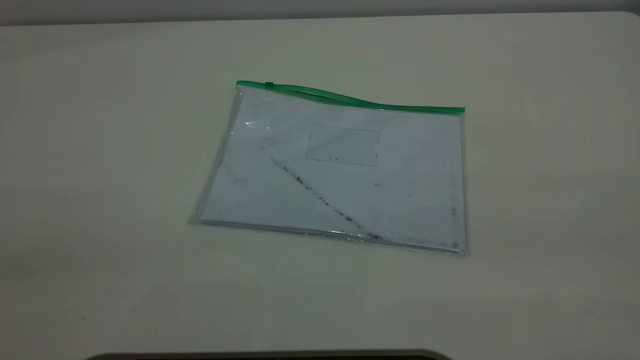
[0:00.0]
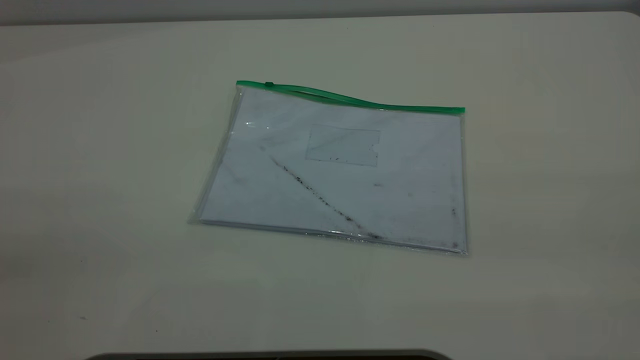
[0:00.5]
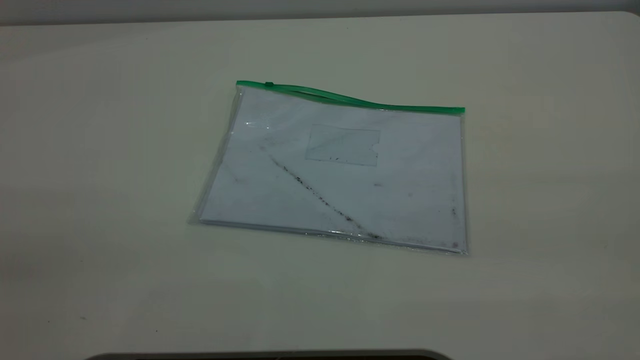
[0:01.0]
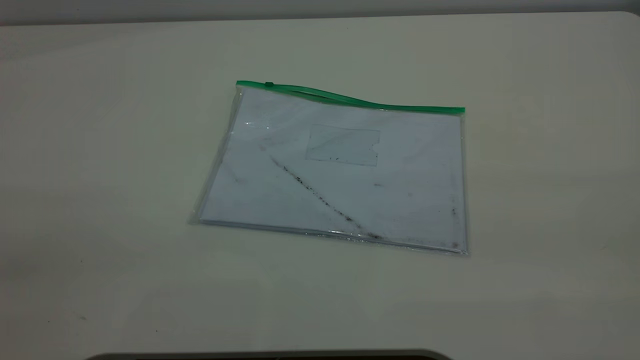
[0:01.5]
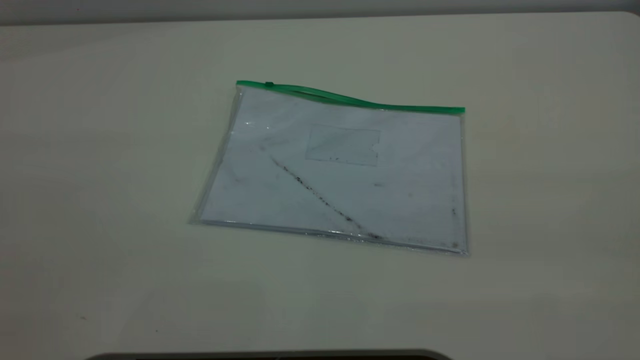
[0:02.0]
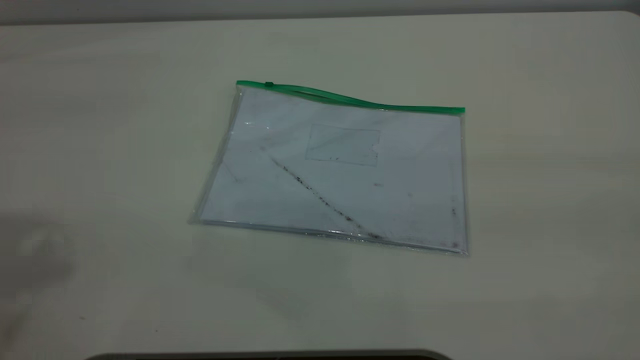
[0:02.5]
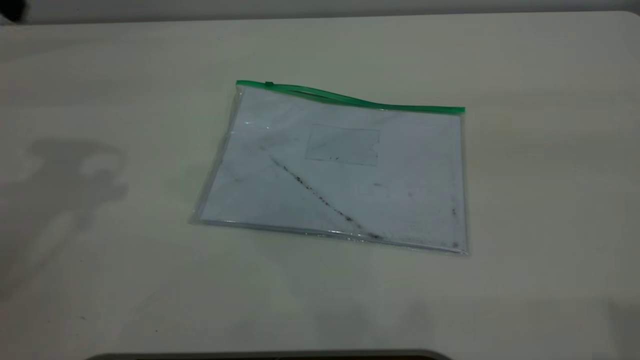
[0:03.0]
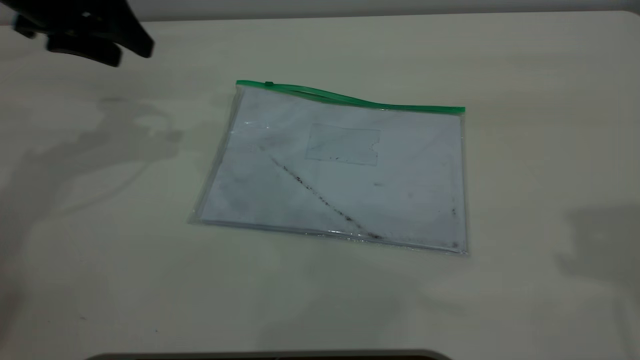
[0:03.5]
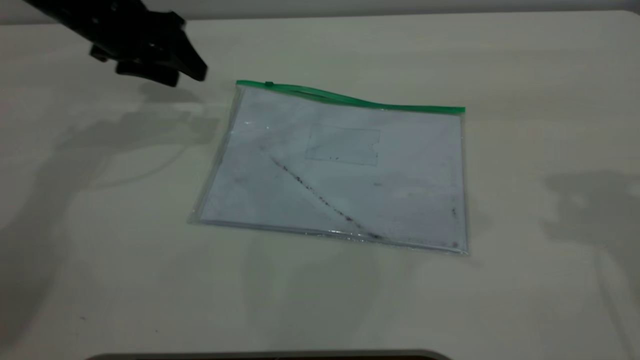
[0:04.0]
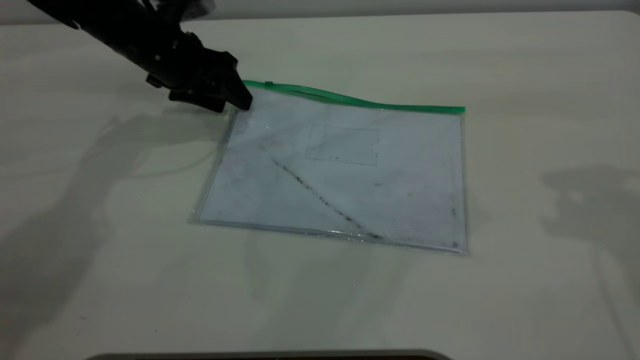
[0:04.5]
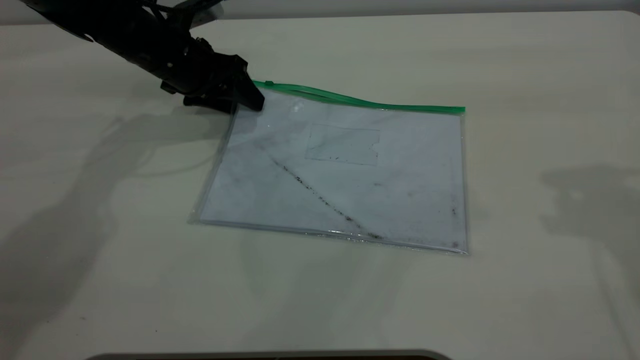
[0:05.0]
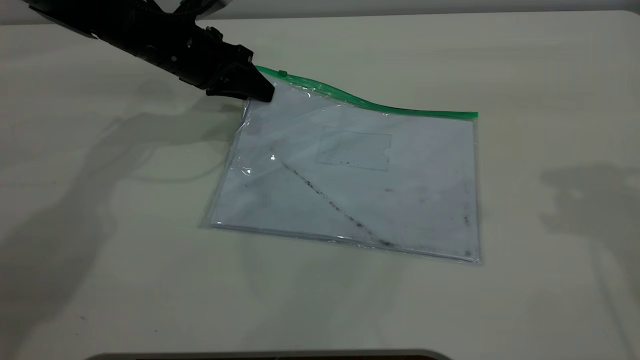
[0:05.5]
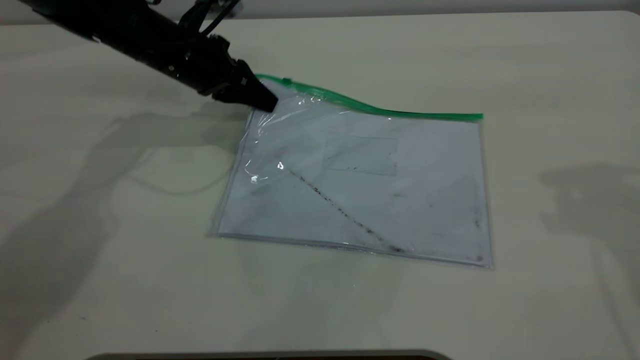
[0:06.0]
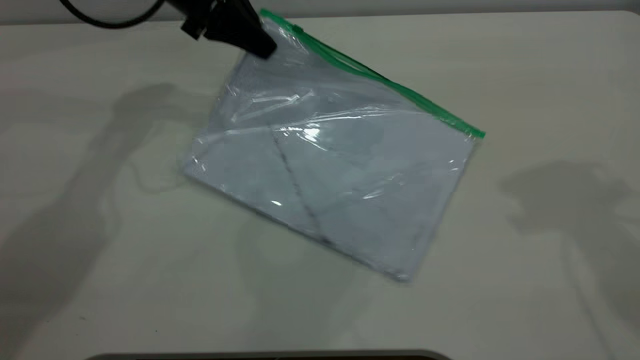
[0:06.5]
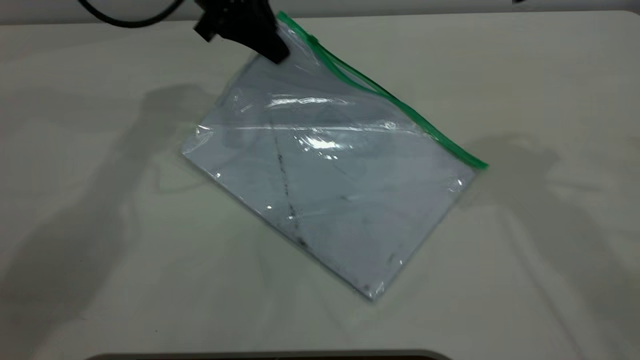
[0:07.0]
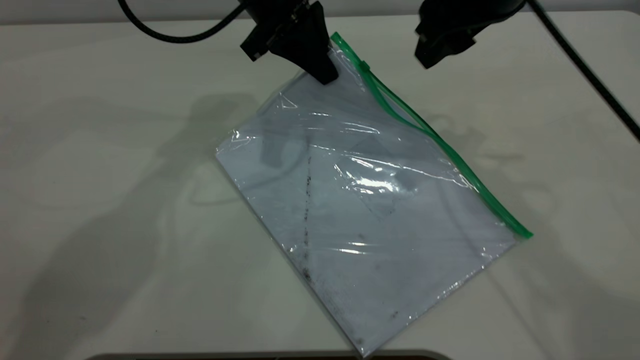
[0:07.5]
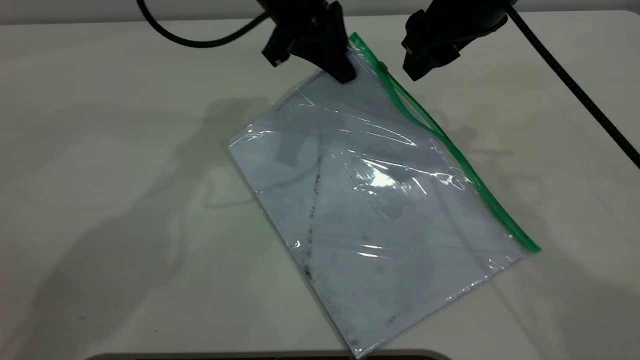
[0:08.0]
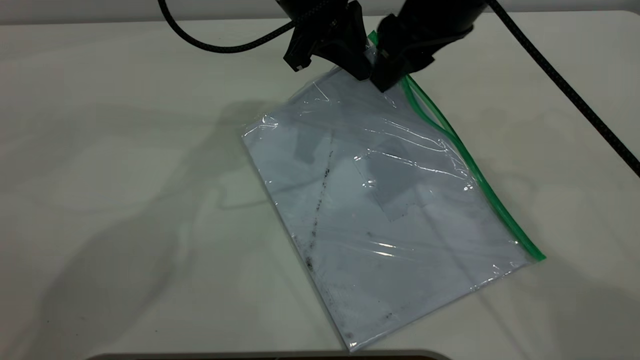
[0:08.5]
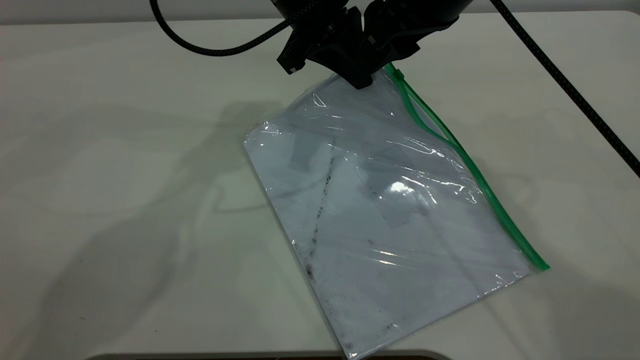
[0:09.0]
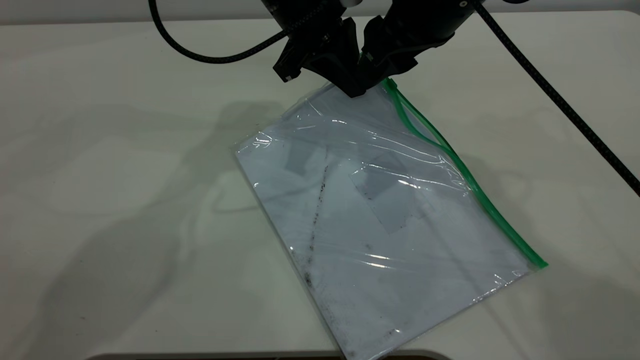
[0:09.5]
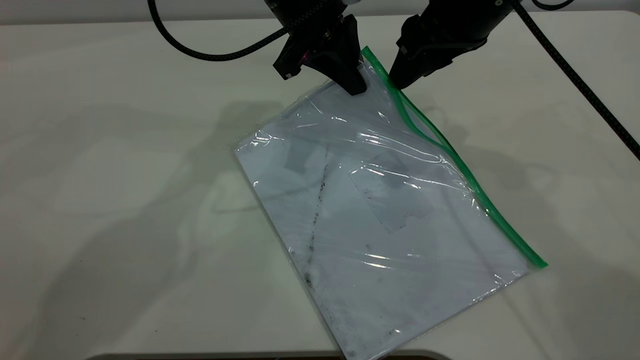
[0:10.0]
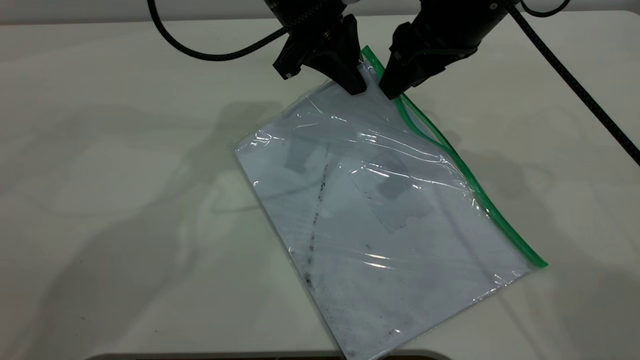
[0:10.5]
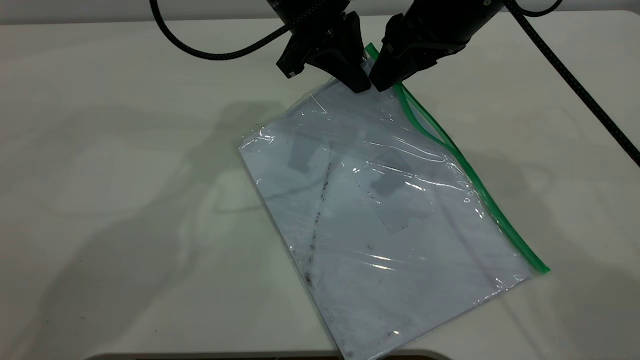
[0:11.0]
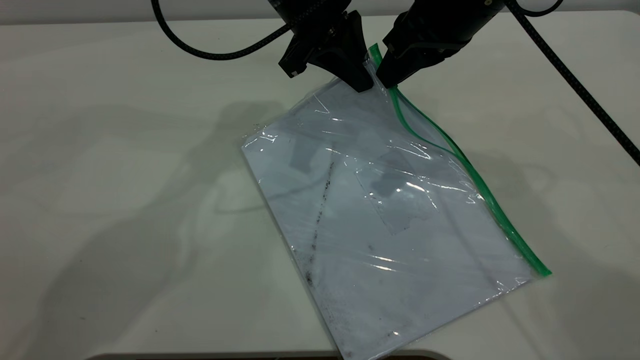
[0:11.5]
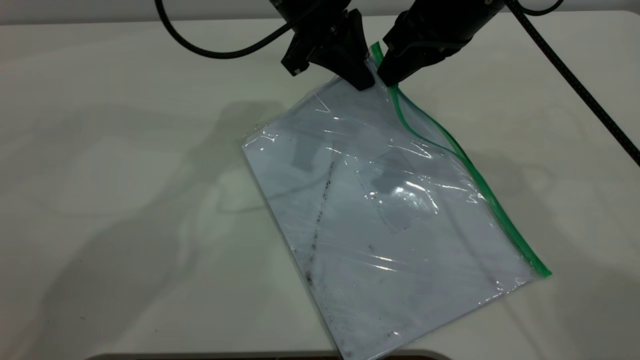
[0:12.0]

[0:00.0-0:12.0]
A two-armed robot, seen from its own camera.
Step, 0:00.0 to 0:06.0: Pick up the transparent plastic bag with the left gripper.
0:02.0 to 0:04.0: The left gripper is displaced forward and downward by some 50 cm.
0:04.0 to 0:06.0: The left gripper shifts some 10 cm to the right and downward, and closes up.
0:06.0 to 0:08.0: The left gripper travels to the right and upward by about 15 cm. Meanwhile the right gripper heads to the left, forward and downward, covering approximately 20 cm.
0:08.0 to 0:10.0: The grippers stay close to where they were, moving slightly.
0:10.0 to 0:12.0: The right gripper closes.

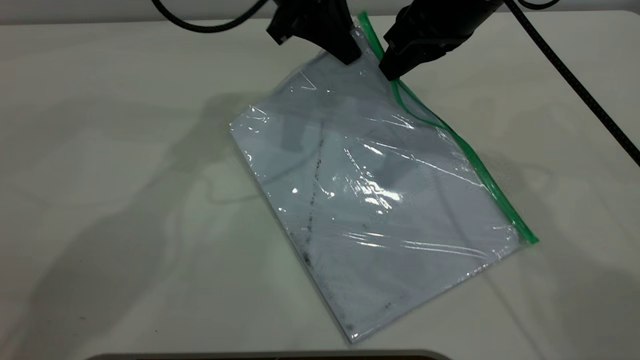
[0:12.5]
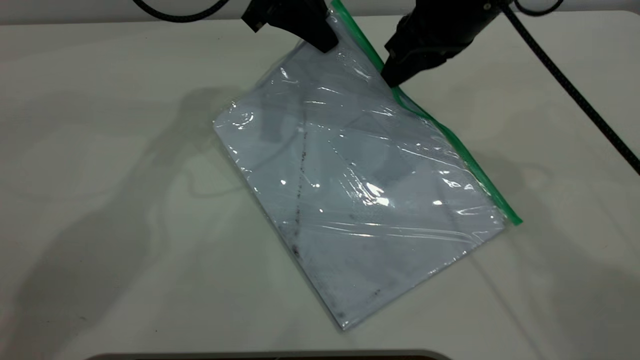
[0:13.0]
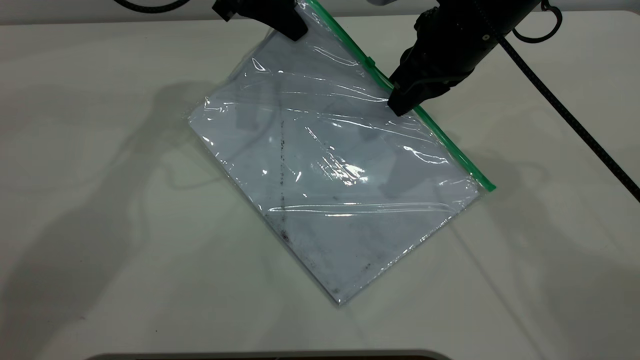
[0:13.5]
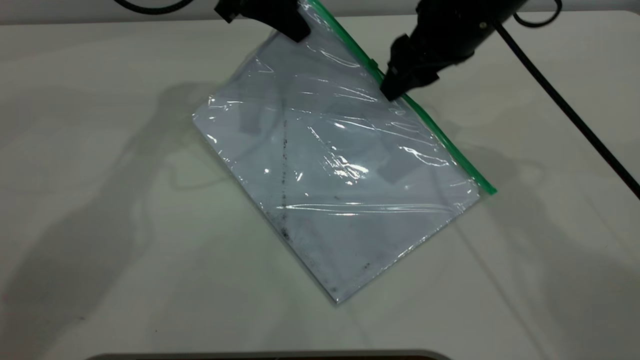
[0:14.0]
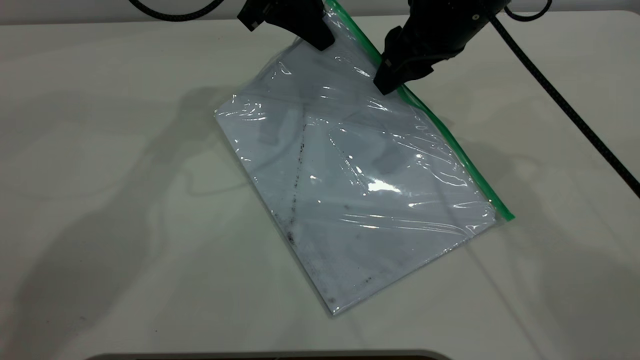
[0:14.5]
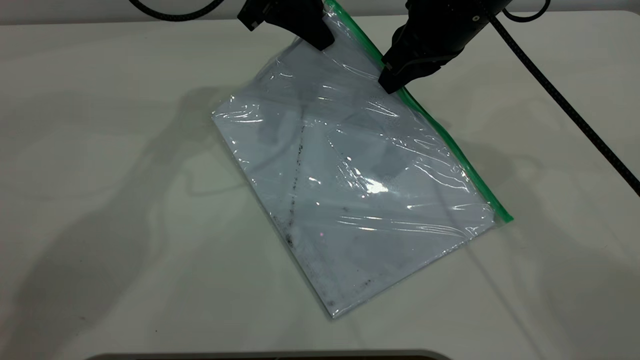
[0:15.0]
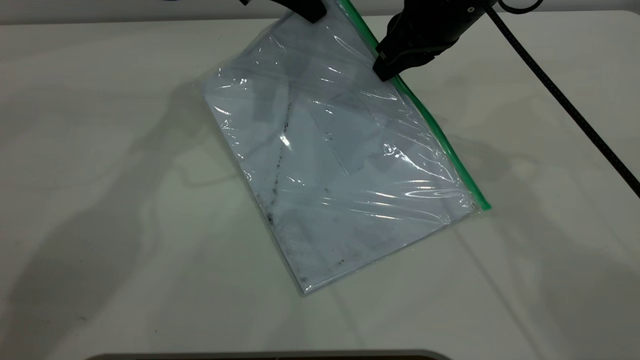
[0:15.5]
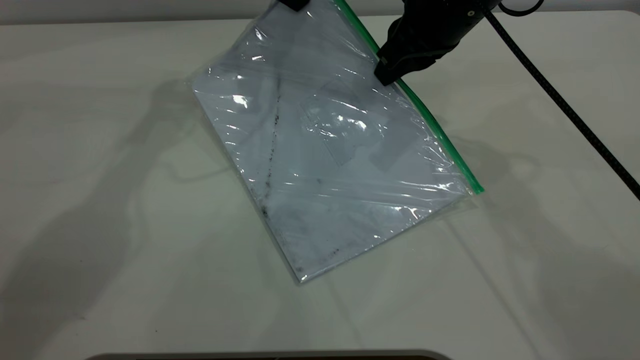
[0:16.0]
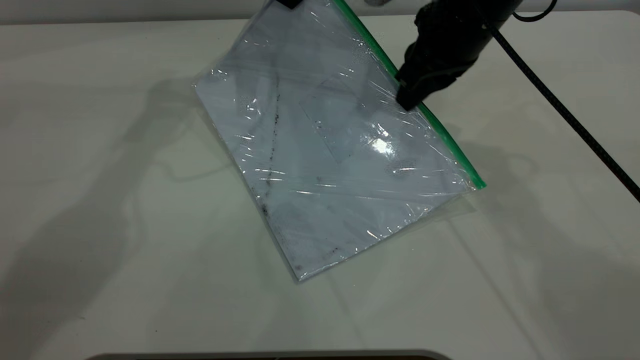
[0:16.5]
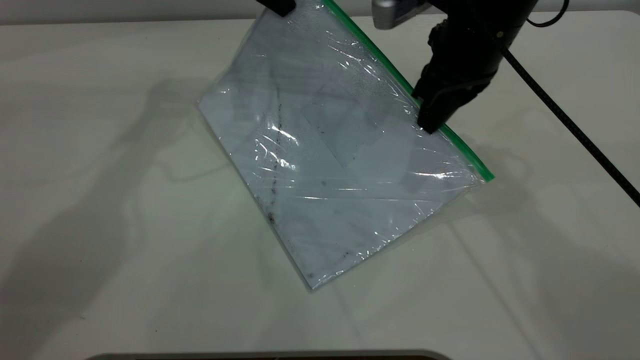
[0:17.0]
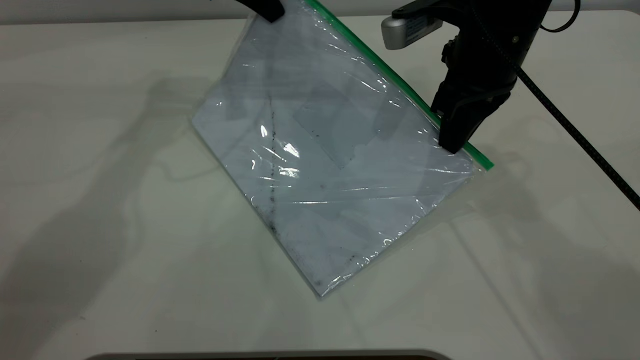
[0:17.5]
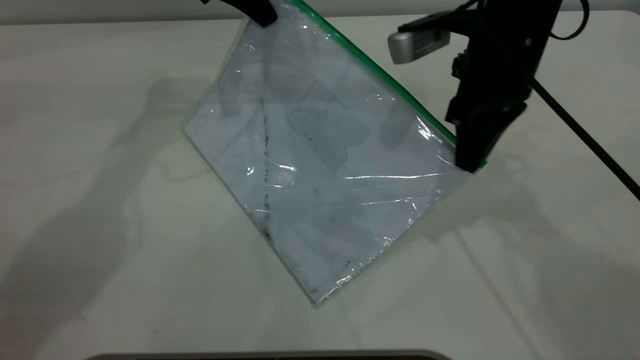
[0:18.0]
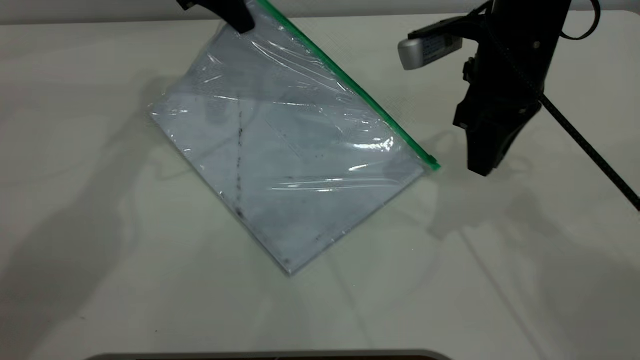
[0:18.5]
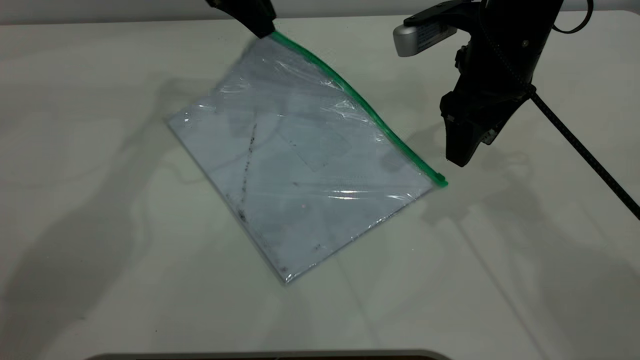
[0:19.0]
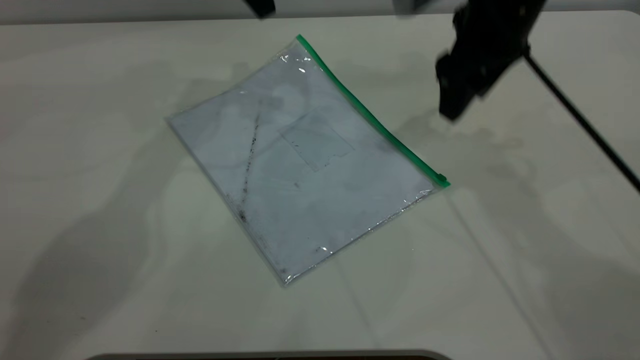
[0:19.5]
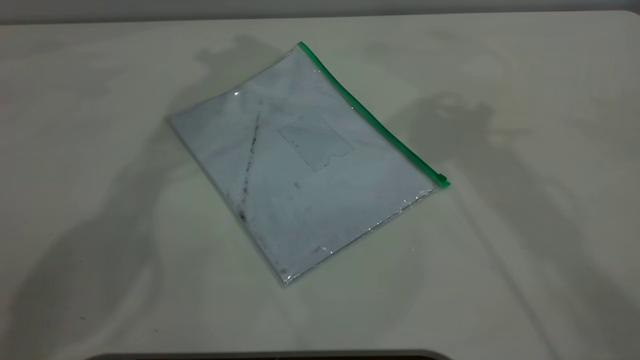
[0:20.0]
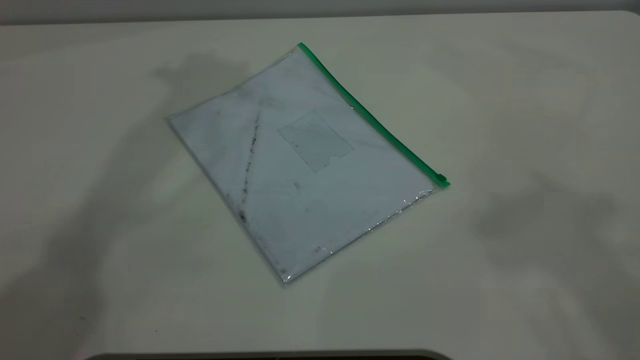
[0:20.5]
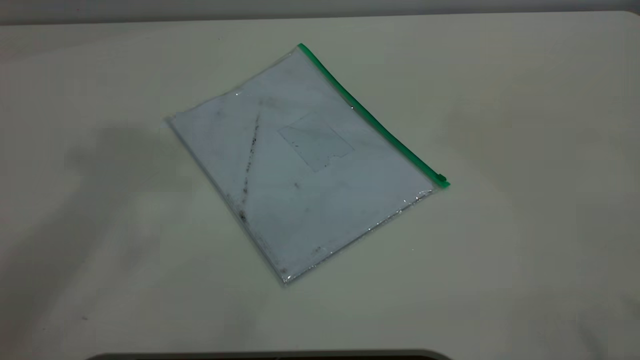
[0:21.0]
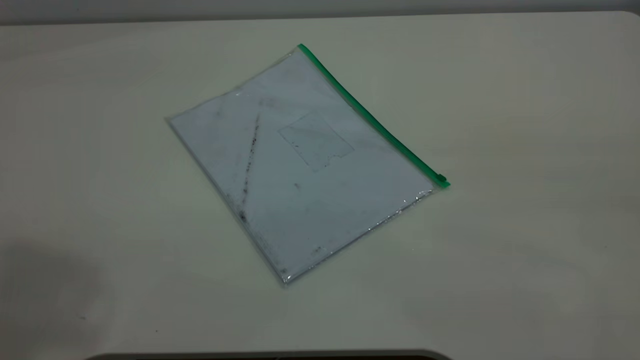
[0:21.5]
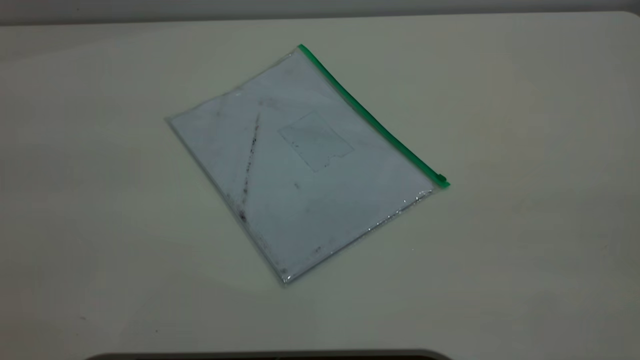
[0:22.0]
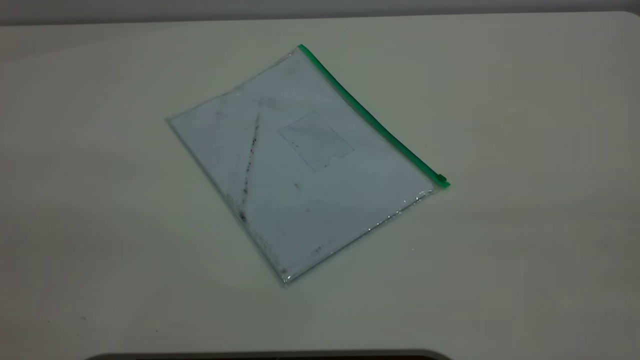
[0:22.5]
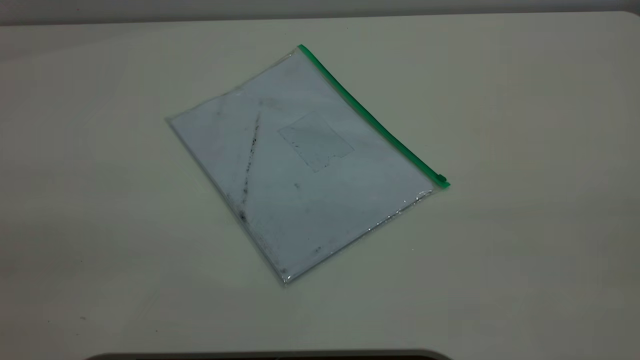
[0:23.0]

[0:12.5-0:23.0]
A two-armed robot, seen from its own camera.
Step, 0:12.5 to 0:18.5: Pulling up the zipper on the transparent plastic bag with the right gripper to close it.
0:12.5 to 0:14.5: The right gripper opens up.
0:14.5 to 0:16.5: The right gripper closes, while the left gripper shifts by about 5 cm.
0:16.5 to 0:19.0: The left gripper opens its fingers; the right gripper opens up.
0:19.0 to 0:21.0: Both grippers move upward and backward, some 40 cm.
